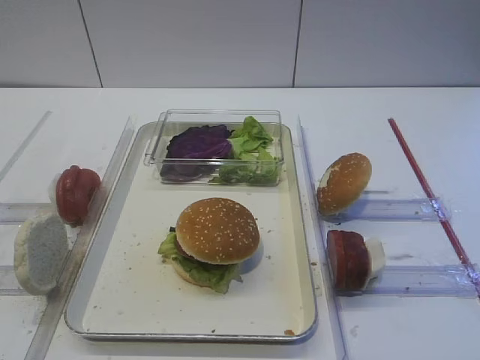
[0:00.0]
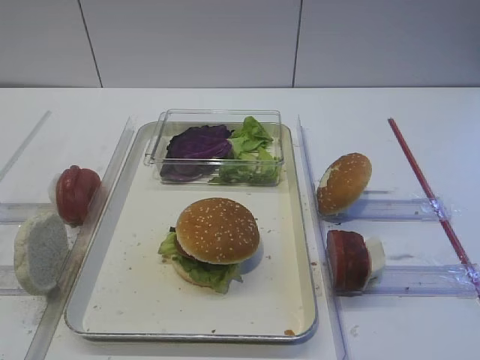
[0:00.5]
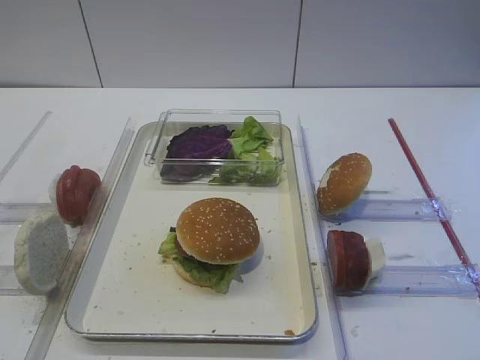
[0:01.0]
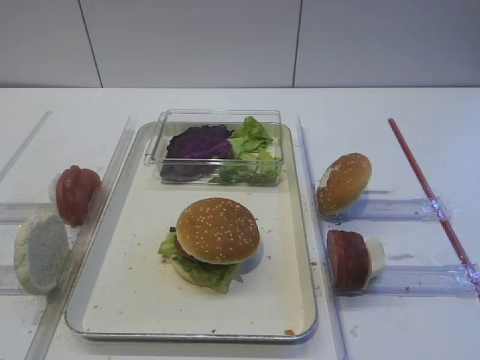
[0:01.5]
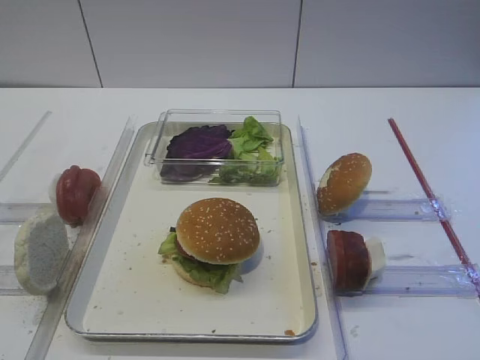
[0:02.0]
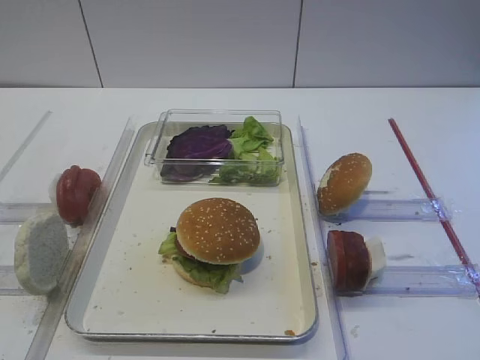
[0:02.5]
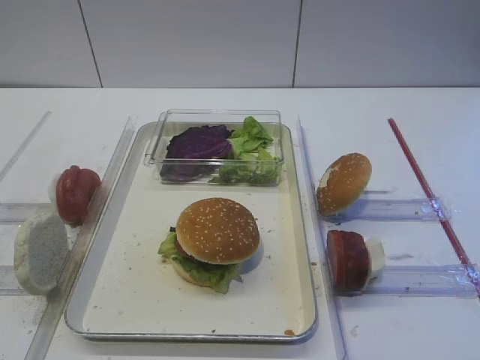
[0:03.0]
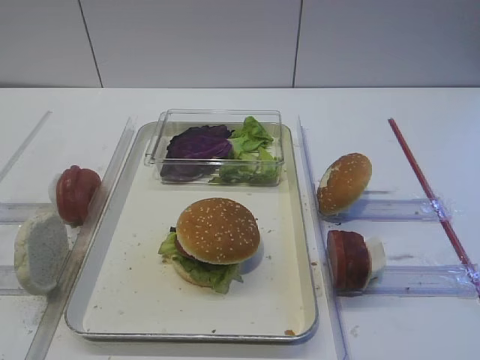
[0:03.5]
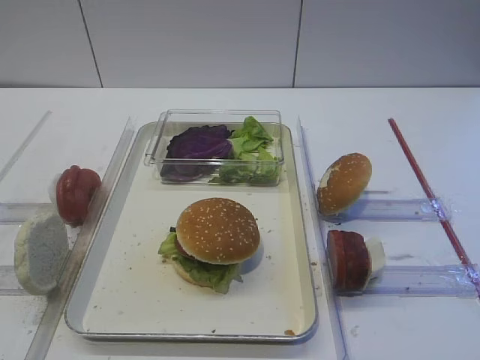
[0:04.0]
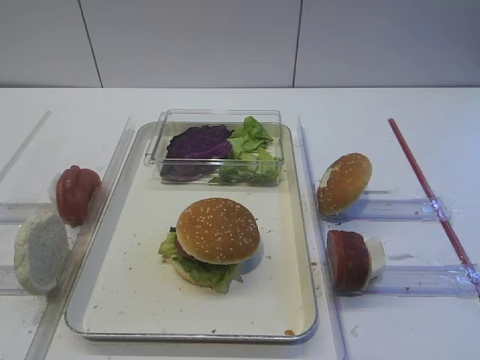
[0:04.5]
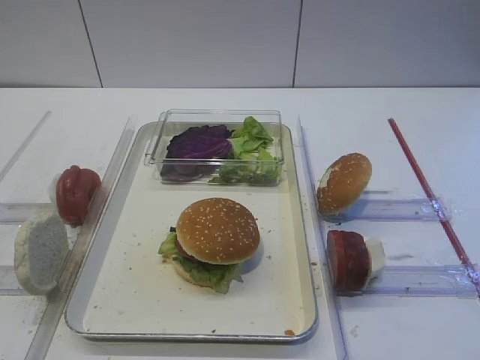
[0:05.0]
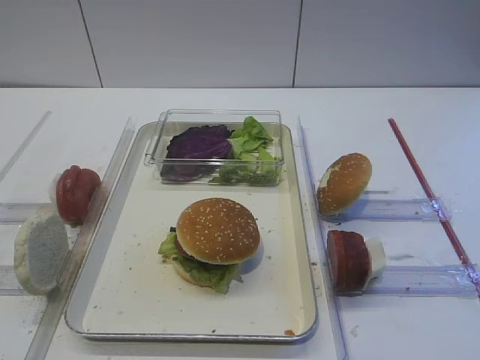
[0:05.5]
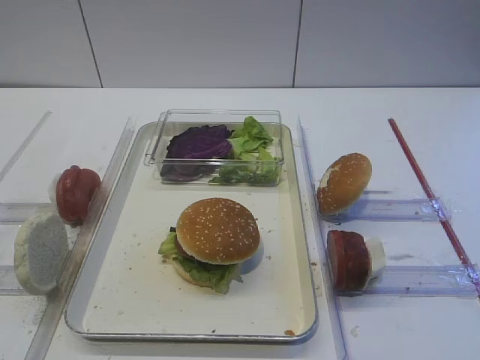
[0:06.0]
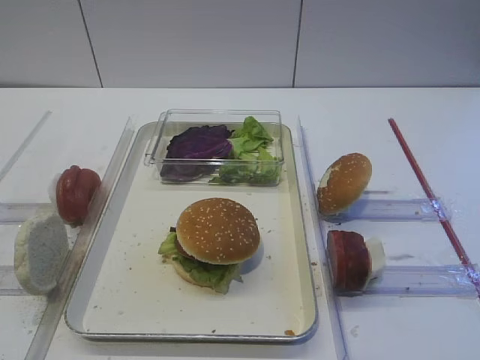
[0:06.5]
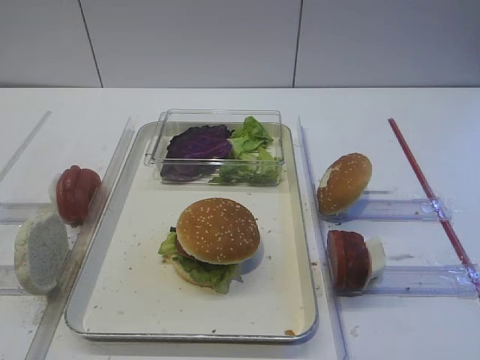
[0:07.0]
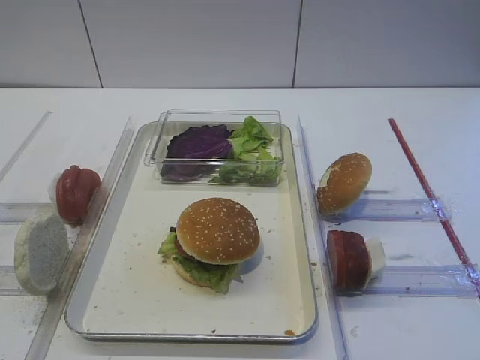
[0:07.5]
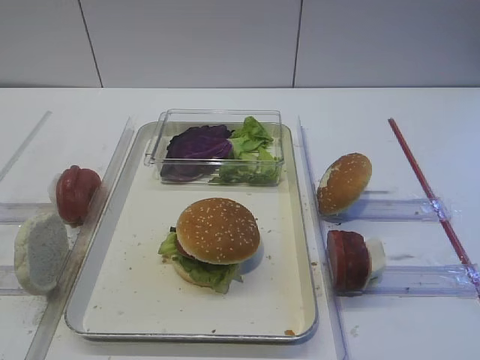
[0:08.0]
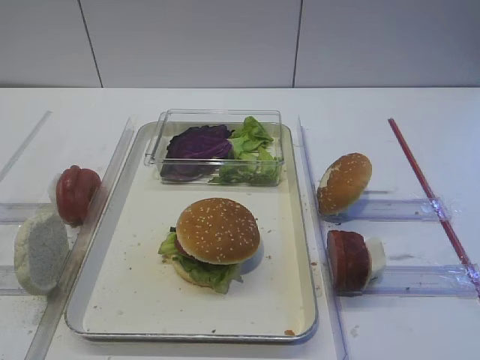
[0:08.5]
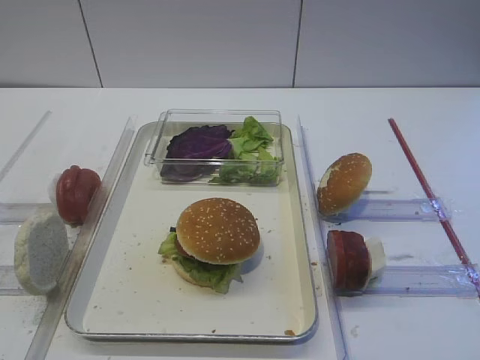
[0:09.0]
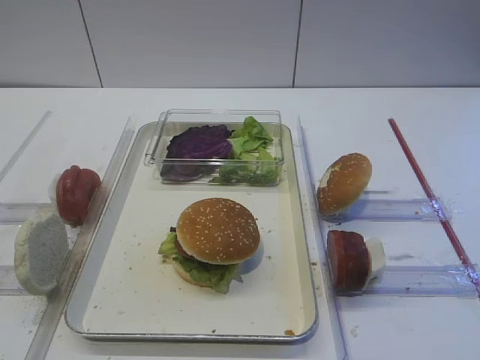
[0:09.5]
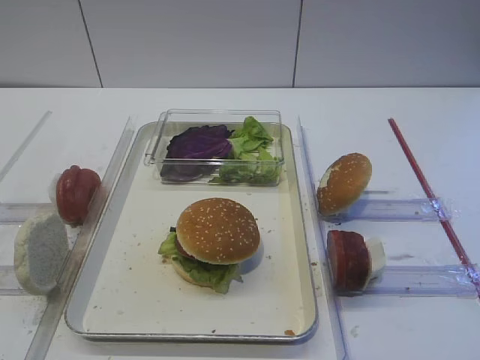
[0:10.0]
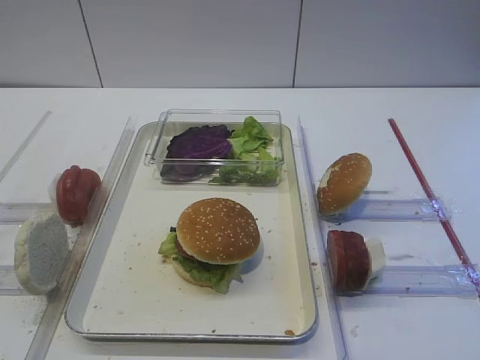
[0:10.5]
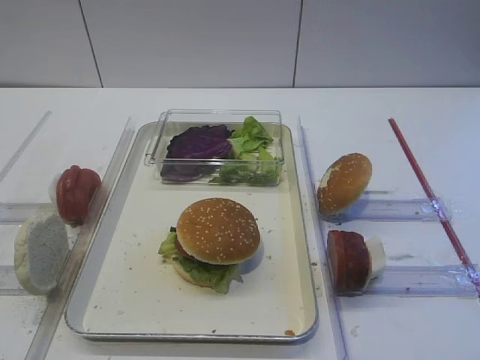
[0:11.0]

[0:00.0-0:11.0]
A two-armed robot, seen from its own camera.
0:02.0 to 0:03.5: Neither gripper changes place.
0:03.5 to 0:11.0: Both grippers stay about where they are.

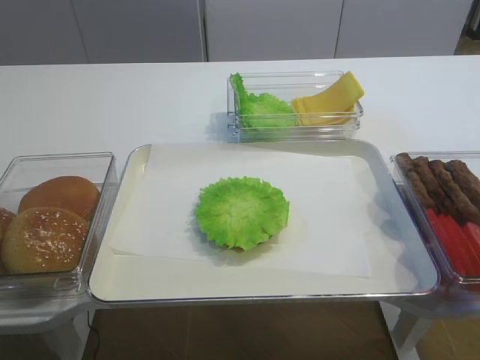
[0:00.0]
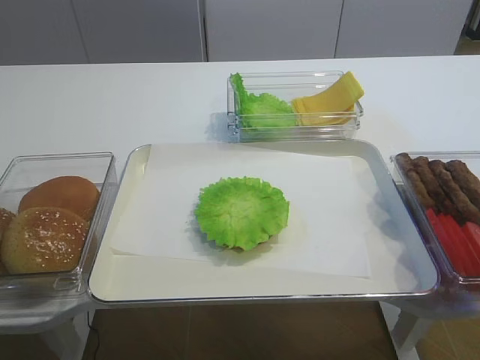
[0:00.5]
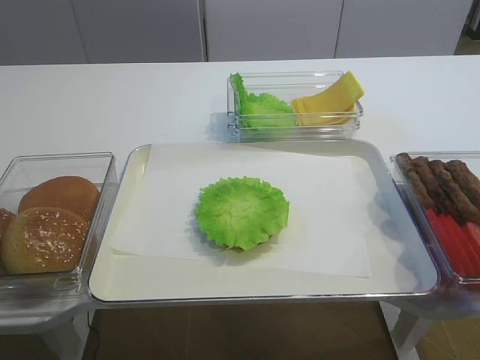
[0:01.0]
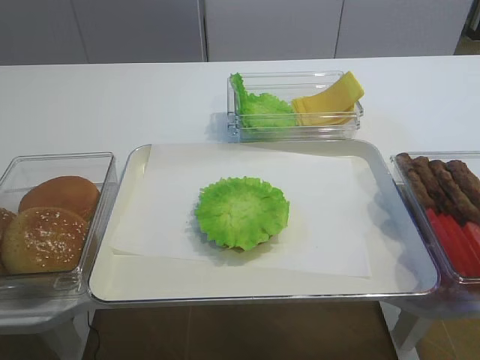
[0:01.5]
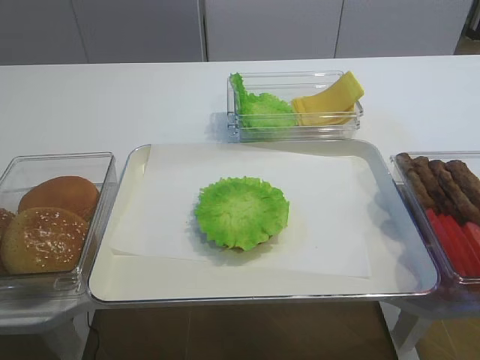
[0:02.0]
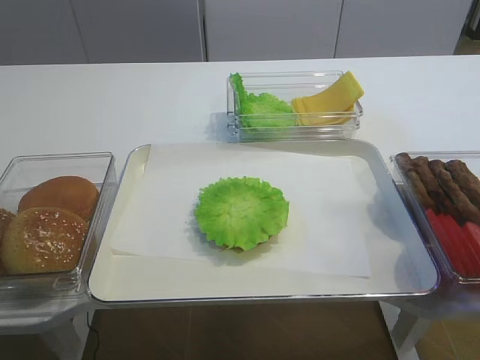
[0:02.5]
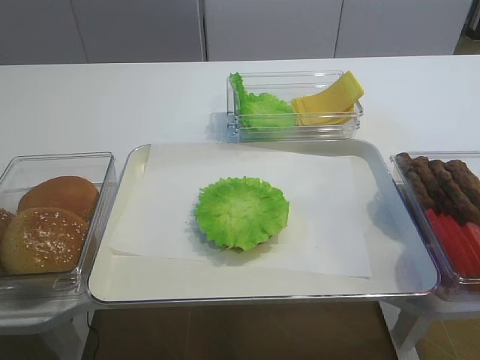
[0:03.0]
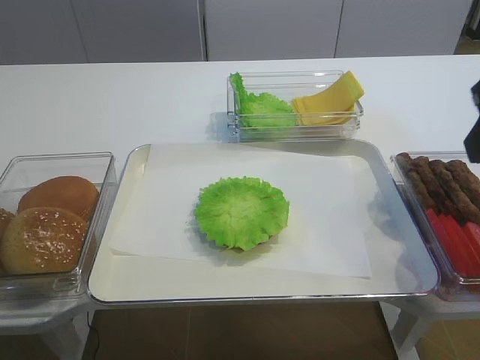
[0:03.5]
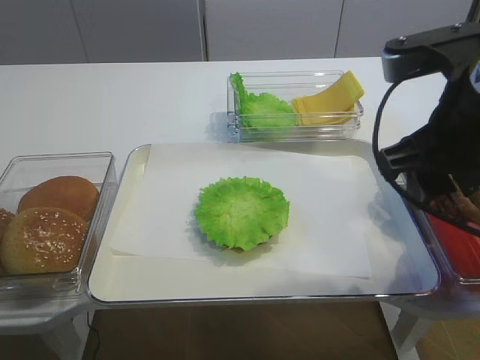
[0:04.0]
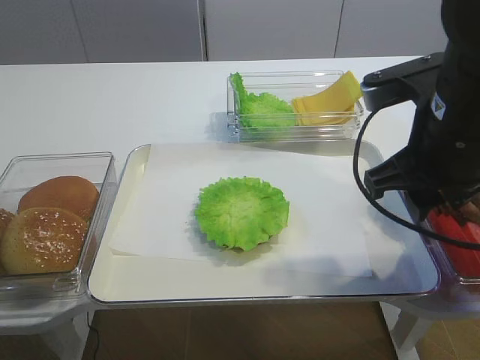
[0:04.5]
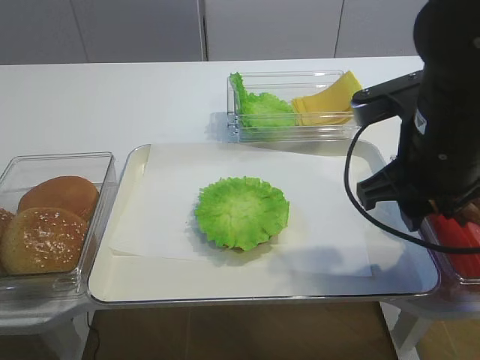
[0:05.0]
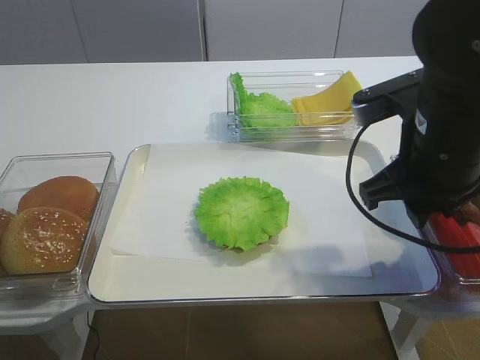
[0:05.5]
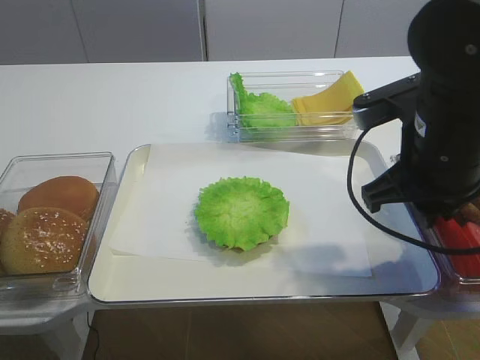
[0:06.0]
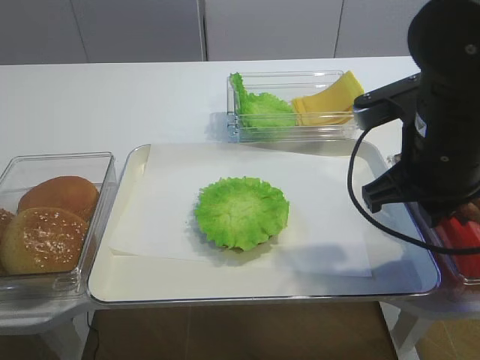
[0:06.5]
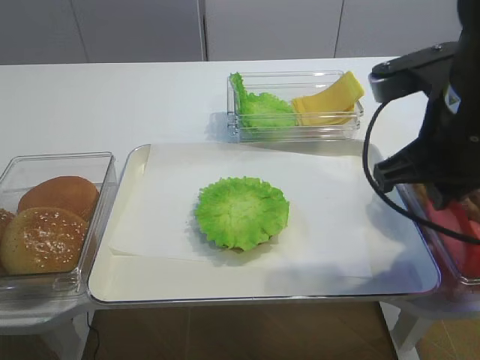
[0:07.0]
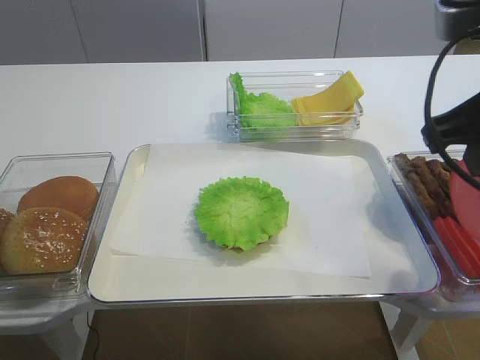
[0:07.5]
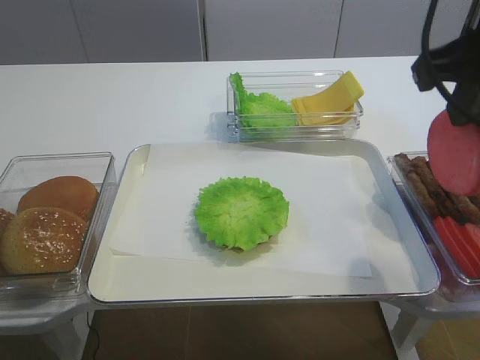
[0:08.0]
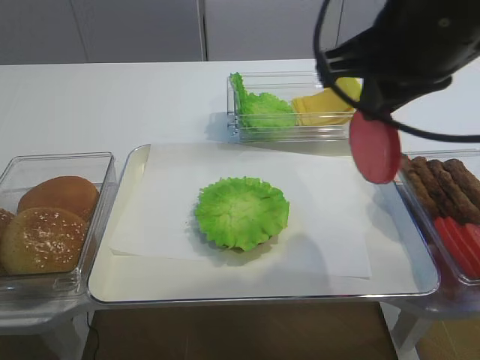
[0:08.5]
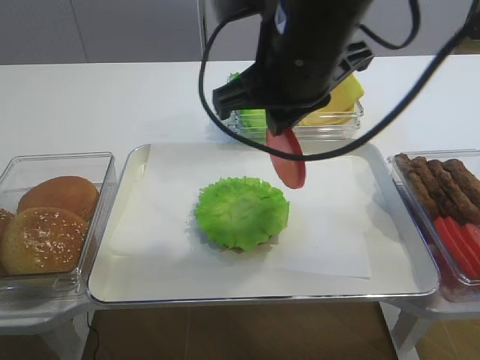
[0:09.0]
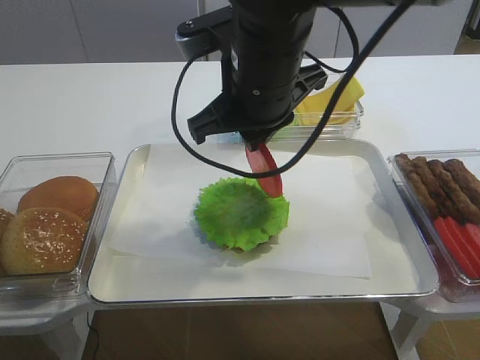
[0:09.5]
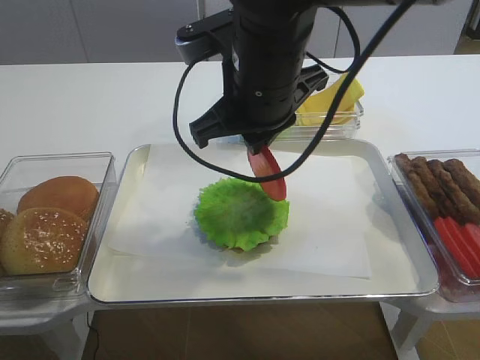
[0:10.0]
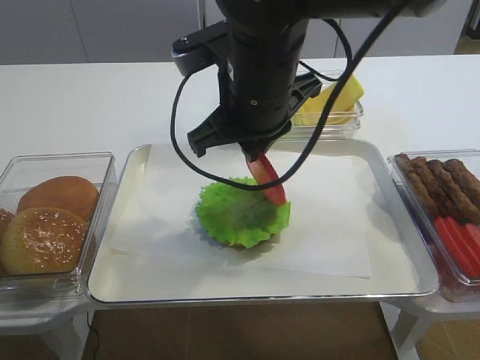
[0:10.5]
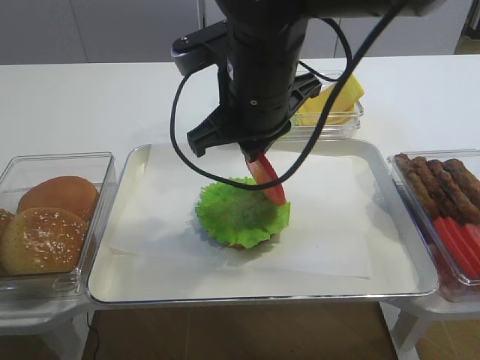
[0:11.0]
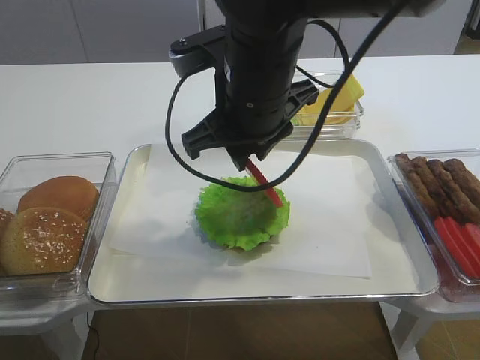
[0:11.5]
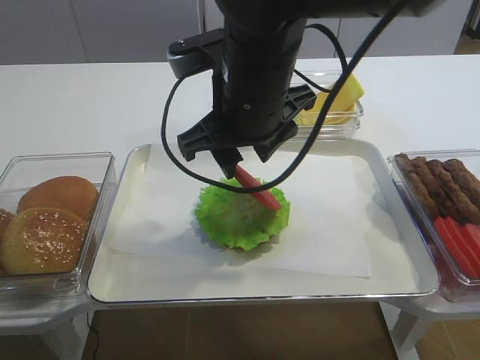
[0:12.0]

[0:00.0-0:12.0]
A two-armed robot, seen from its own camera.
Step, 0:00.0 to 0:07.0: Pick up the tomato slice with the right gripper.
0:02.0 to 0:04.0: The right gripper heads forward and to the left, covering approximately 25 cm.
0:04.0 to 0:06.0: The right gripper ends up roughly 5 cm from where it was, and closes up.
0:06.0 to 0:08.0: The right gripper travels upward by about 10 cm.
0:08.0 to 0:10.0: The right gripper goes approximately 20 cm to the left, forward and downward.
0:10.0 to 0:12.0: The right gripper opens its fingers.

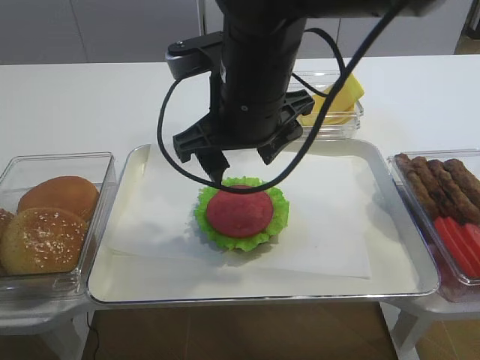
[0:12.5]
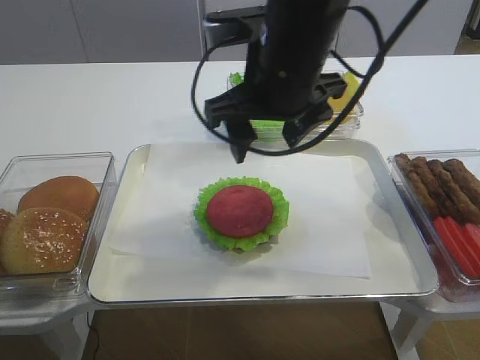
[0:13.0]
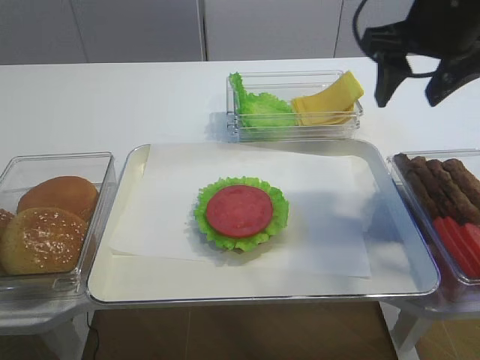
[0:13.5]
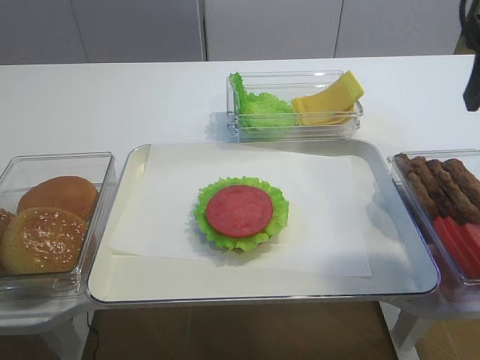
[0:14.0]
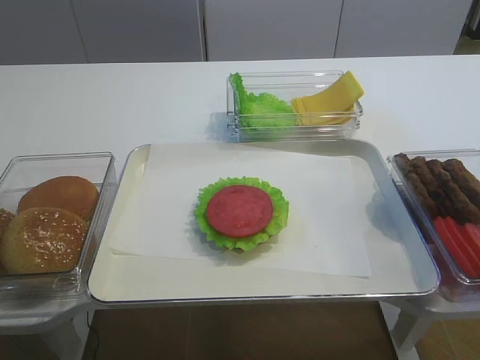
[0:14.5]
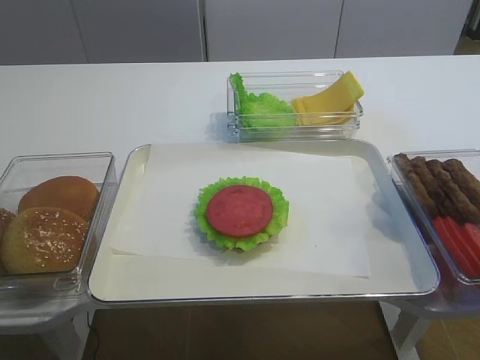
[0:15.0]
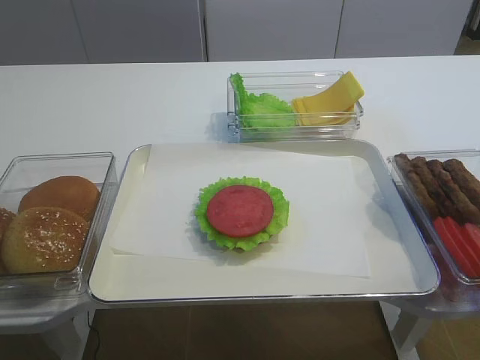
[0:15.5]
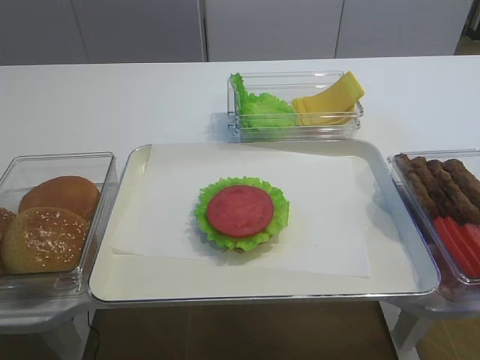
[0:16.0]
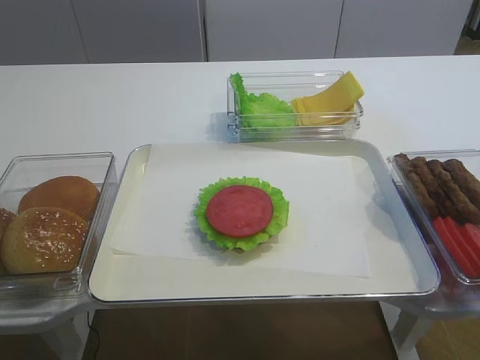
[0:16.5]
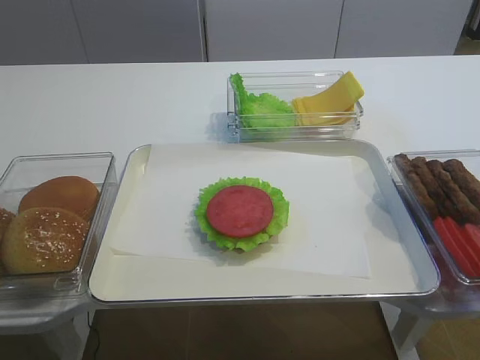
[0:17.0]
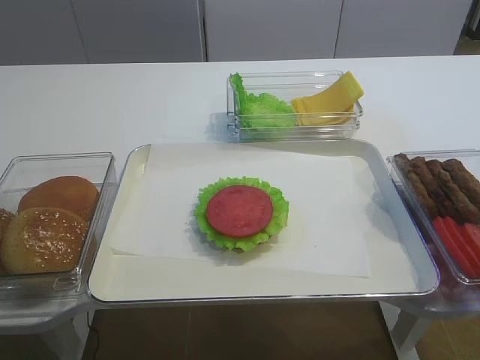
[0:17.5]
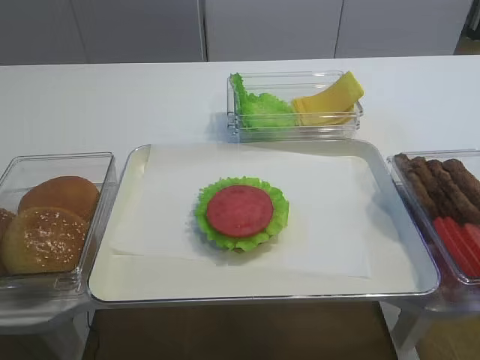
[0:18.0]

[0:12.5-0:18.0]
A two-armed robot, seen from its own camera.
0:12.5 to 0:14.5: The right gripper travels to the right and backward by some 30 cm.
0:14.5 to 0:16.0: The right gripper travels backward and downward by approximately 20 cm.
0:16.0 to 0:18.0: Both grippers stay put.
